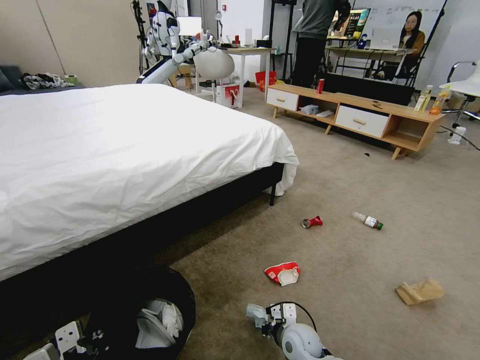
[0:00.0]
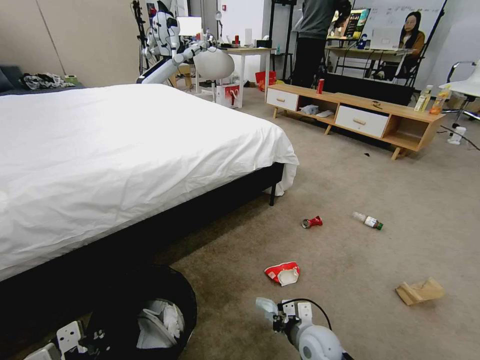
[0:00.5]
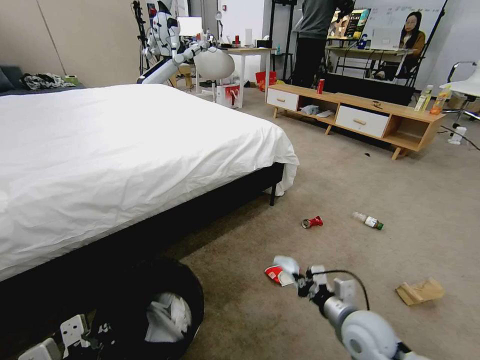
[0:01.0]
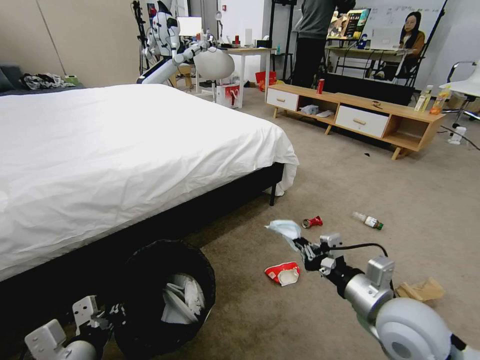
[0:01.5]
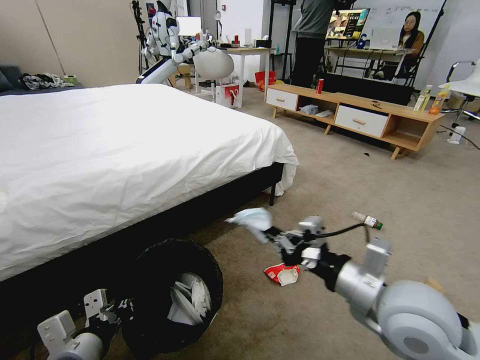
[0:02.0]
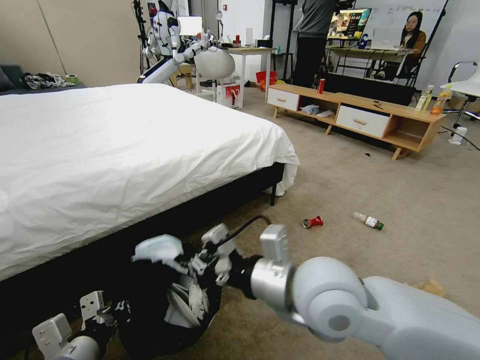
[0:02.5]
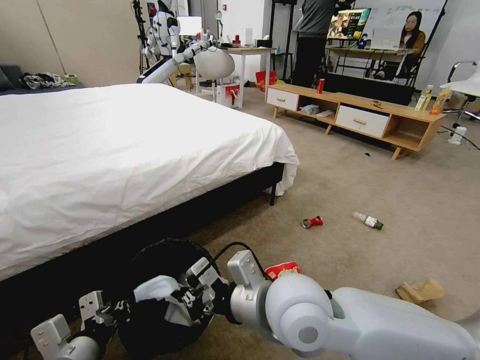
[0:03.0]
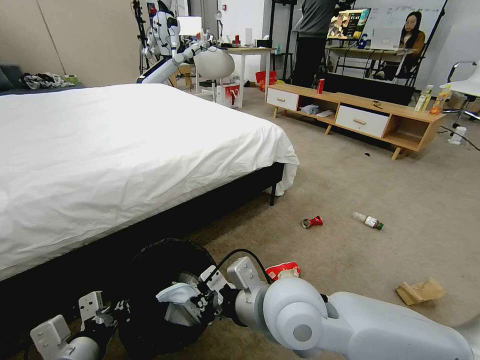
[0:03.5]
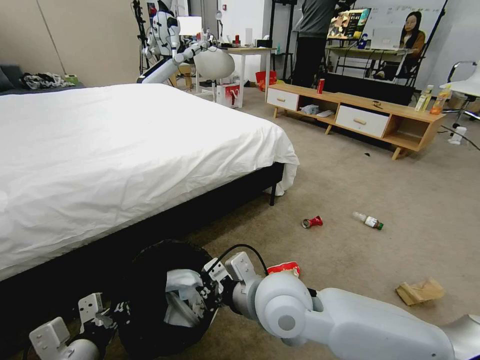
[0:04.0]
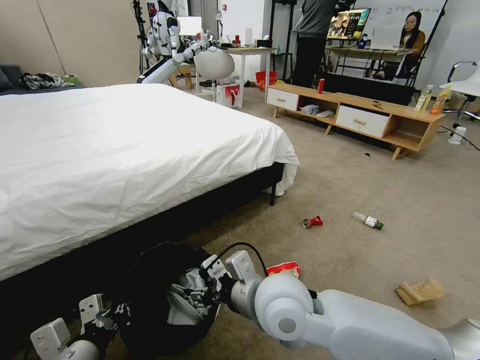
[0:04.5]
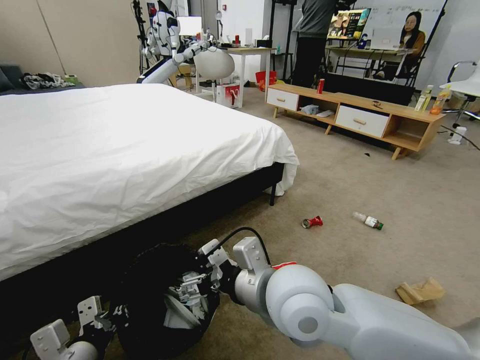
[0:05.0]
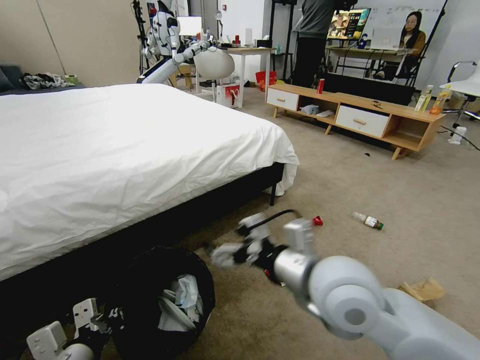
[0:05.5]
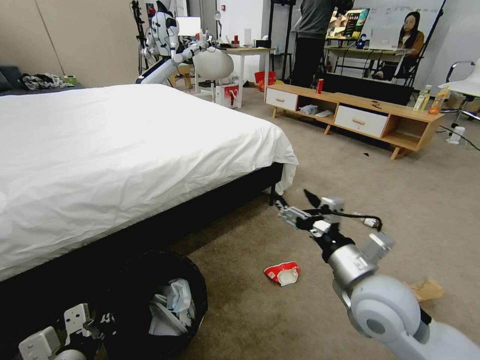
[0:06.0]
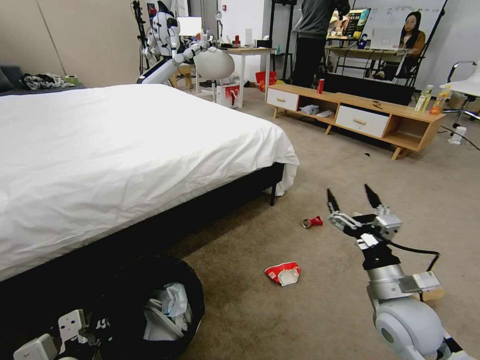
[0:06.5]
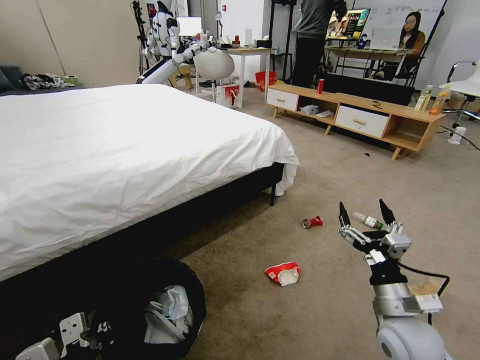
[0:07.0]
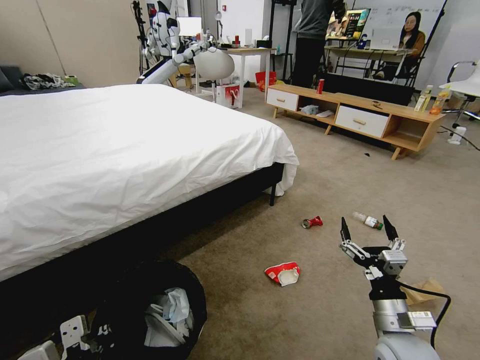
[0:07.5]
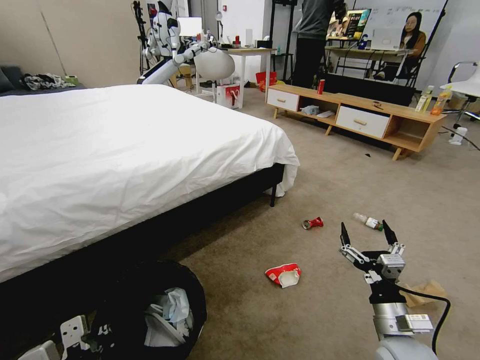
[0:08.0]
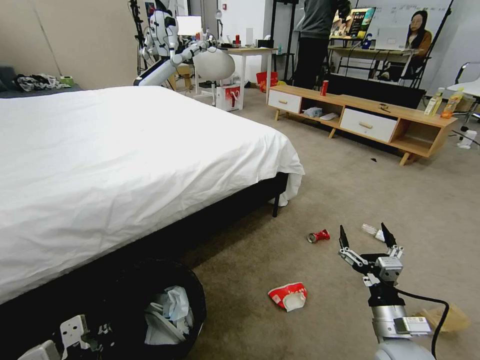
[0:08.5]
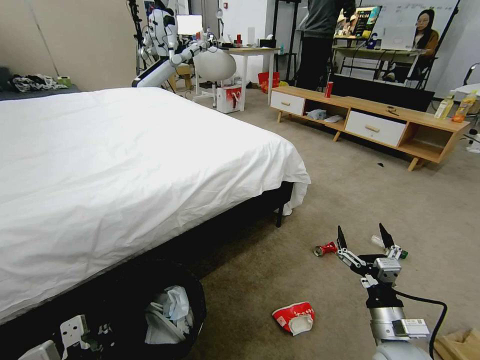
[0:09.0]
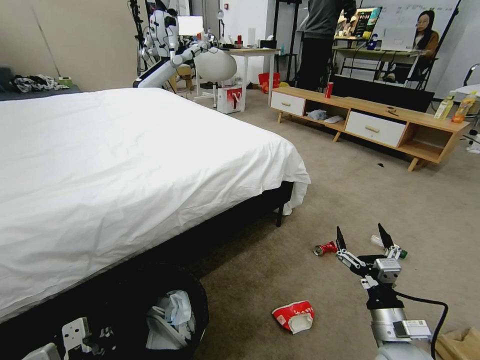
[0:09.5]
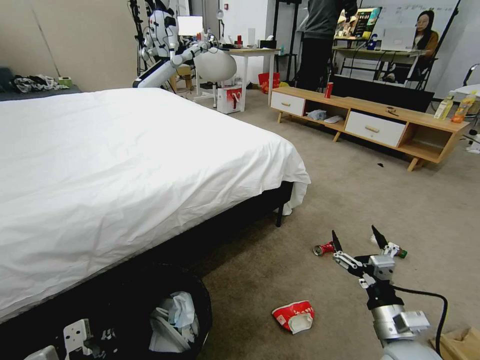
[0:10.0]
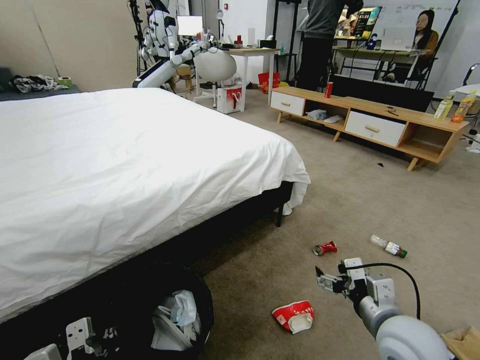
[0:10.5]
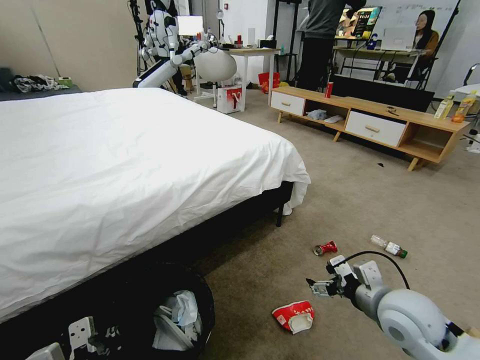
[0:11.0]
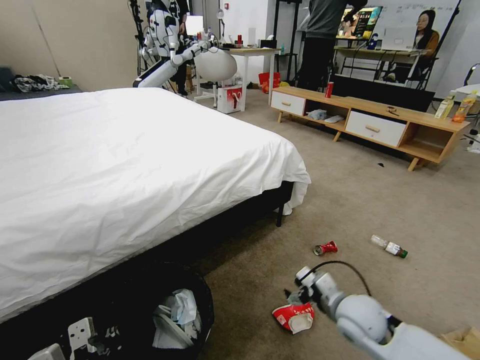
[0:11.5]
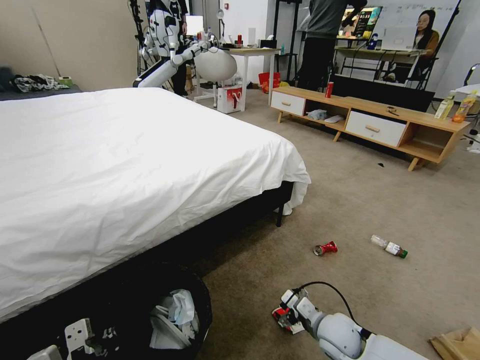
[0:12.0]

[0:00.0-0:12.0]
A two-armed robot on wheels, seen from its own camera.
Task of the whole recording: Pick up the trash bin and place the garbage on the floor into it.
0:00.0 to 0:02.0: The right gripper shifts about 35 cm upward.
0:02.0 to 0:04.0: The right gripper goes roughly 15 cm to the left.
0:04.0 to 0:06.0: The right gripper heads to the right, covering roughly 15 cm, and opens its fingers.
0:06.0 to 0:08.0: The right gripper goes some 15 cm downward and to the right.
0:10.0 to 0:12.0: The right gripper is displaced downward, forward and to the left by roughly 15 cm.

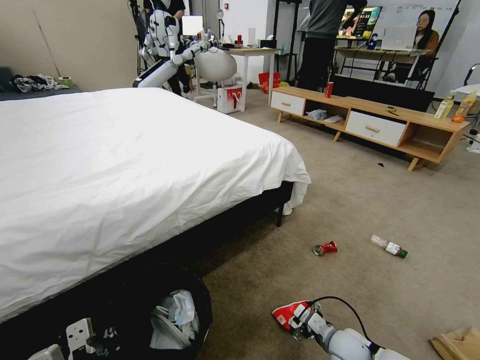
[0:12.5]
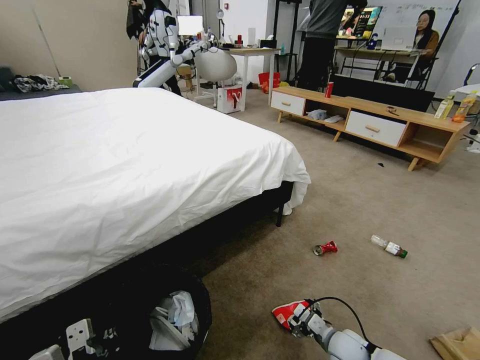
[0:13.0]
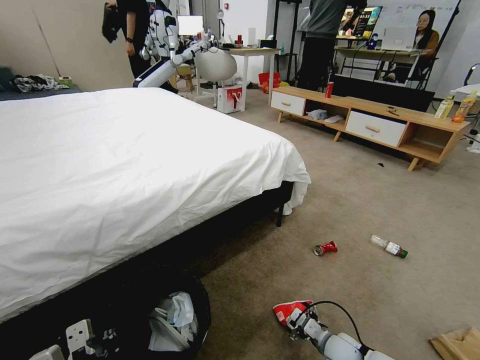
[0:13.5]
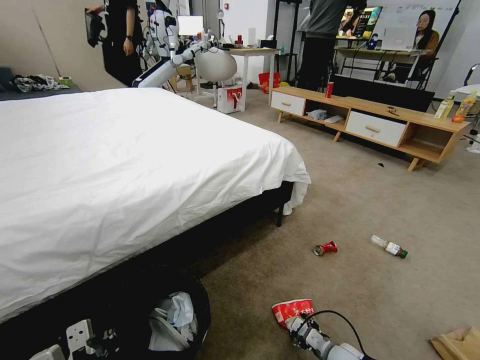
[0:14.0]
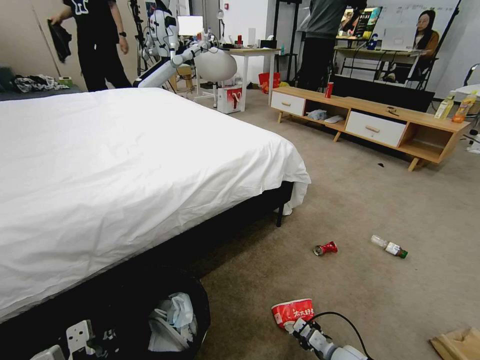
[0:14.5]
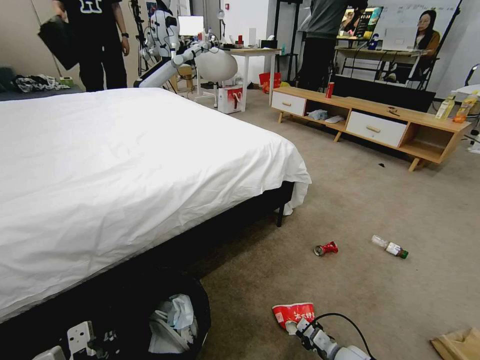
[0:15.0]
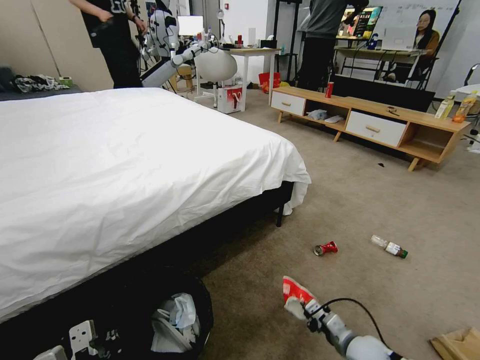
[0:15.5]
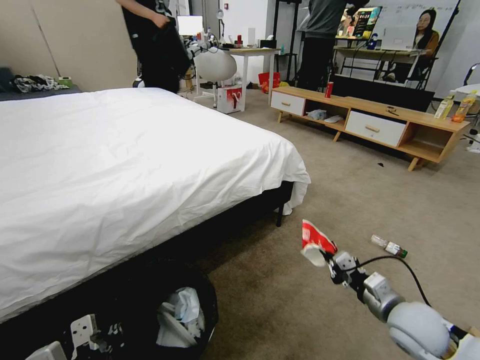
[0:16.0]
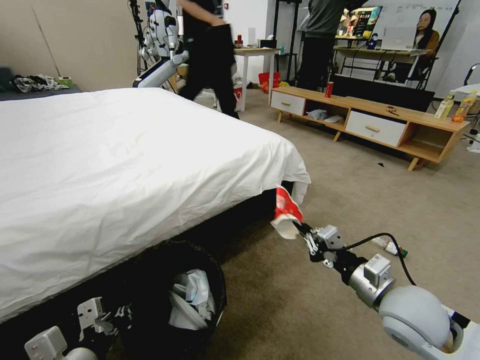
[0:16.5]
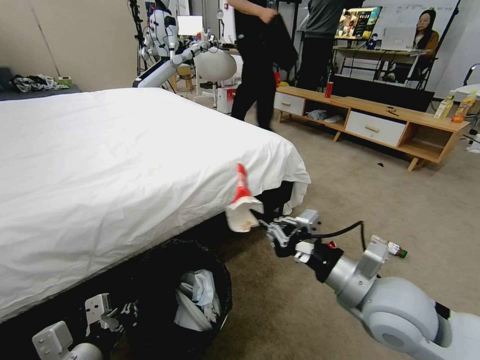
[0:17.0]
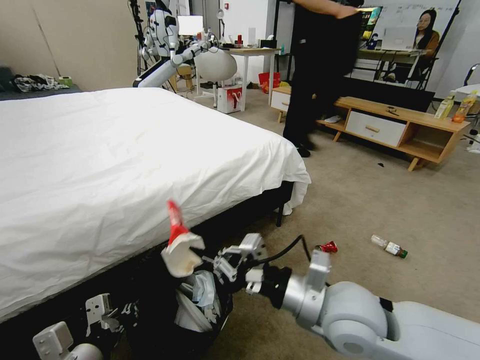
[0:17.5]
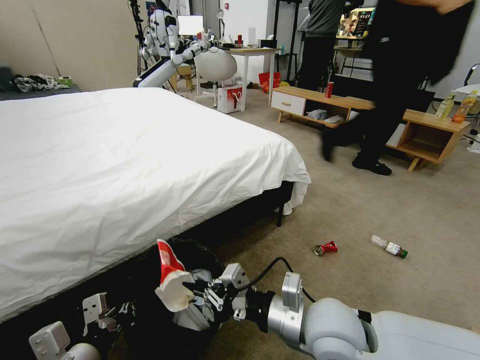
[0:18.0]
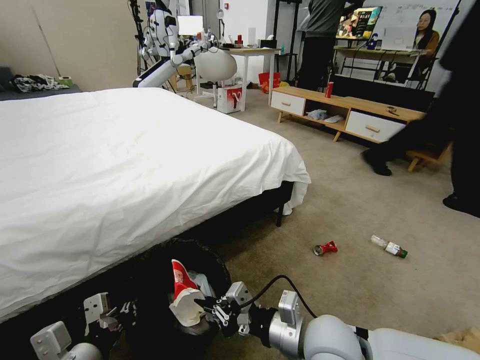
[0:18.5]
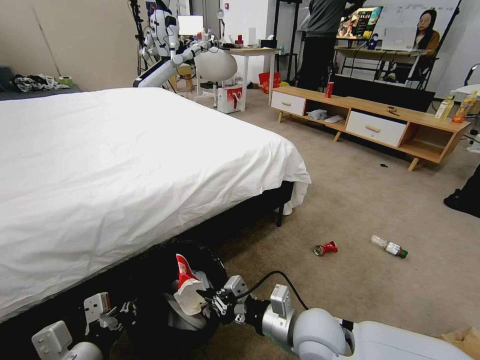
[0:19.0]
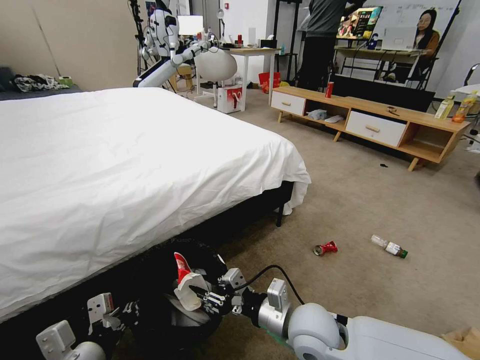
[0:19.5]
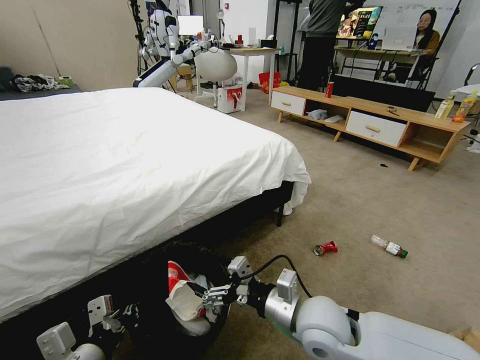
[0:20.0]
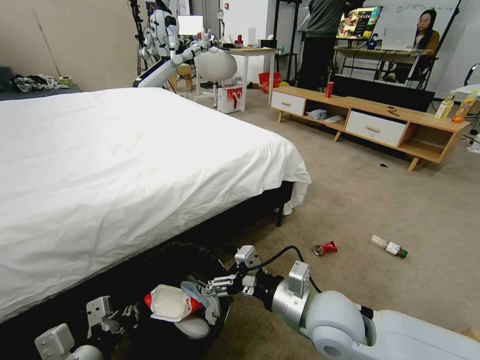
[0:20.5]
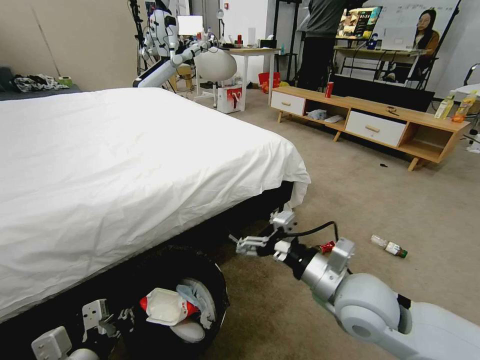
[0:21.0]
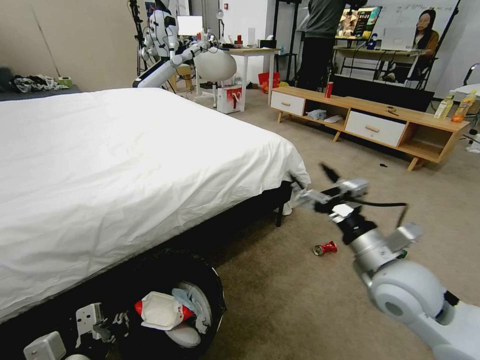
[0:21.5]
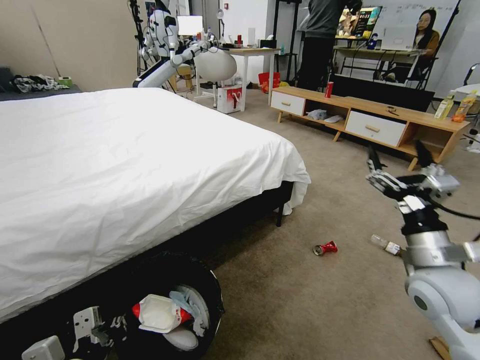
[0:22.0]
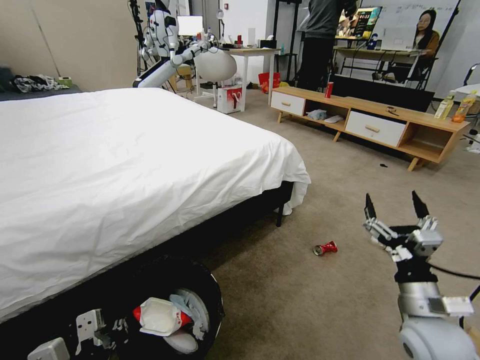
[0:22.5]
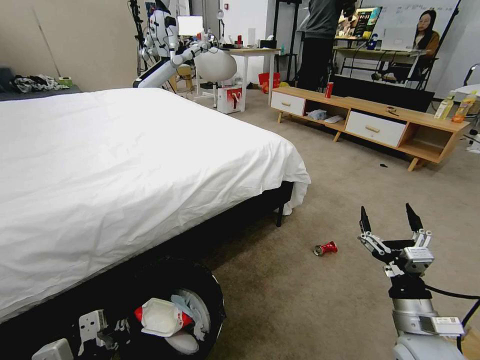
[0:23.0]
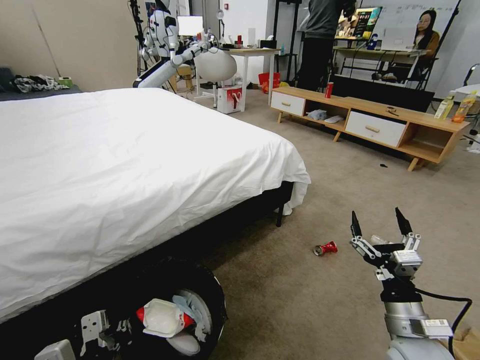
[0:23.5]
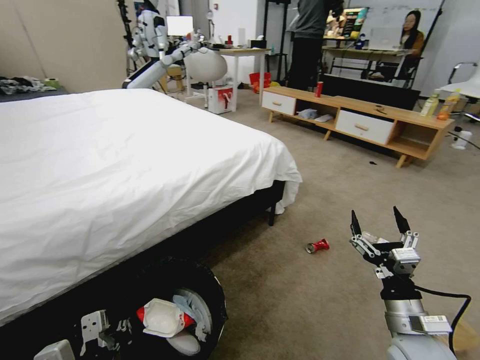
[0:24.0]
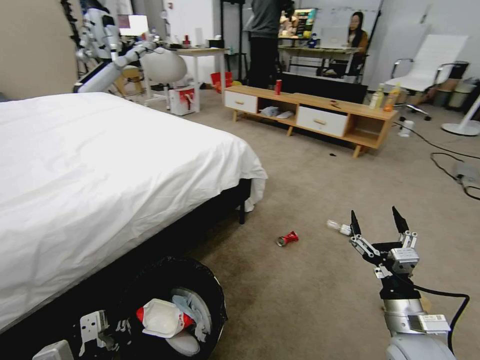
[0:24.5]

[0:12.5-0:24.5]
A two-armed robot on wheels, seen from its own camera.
Task of the whole recording: Pick up the trash bin and place the garbage on the floor into it.
0:12.5 to 0:14.5: The right gripper is displaced downward by roughly 5 cm, and closes its fingers.
0:14.5 to 0:16.5: The right gripper travels upward by about 30 cm.
0:16.5 to 0:18.5: The right gripper shifts some 15 cm to the left.
0:18.5 to 0:20.5: The right gripper opens its fingers.
0:20.5 to 0:22.5: The right gripper shifts about 20 cm to the right.

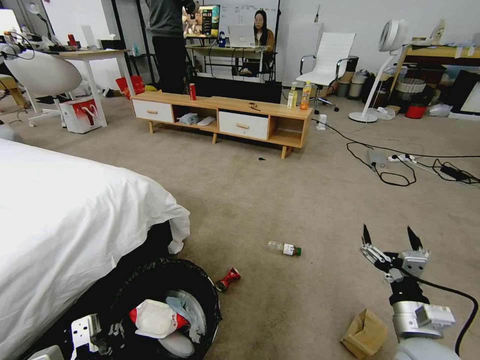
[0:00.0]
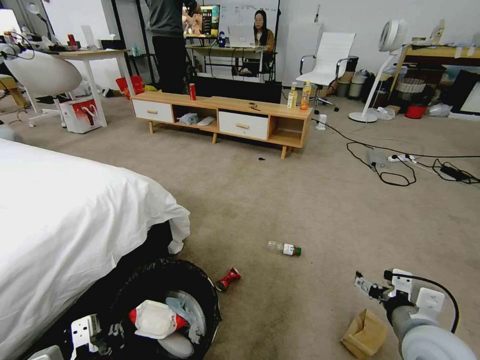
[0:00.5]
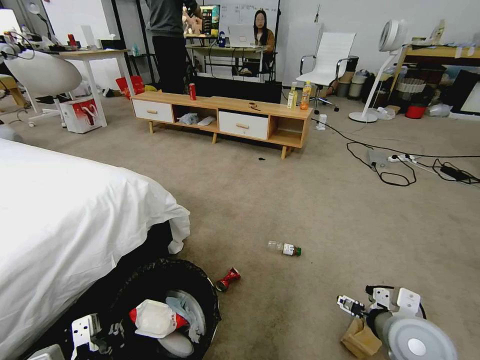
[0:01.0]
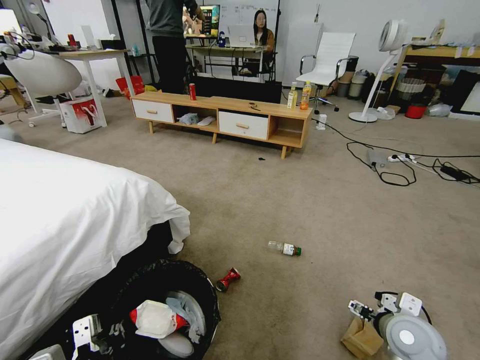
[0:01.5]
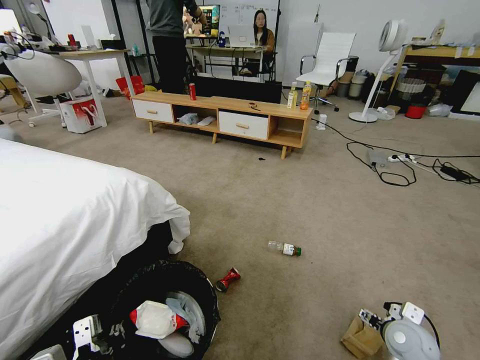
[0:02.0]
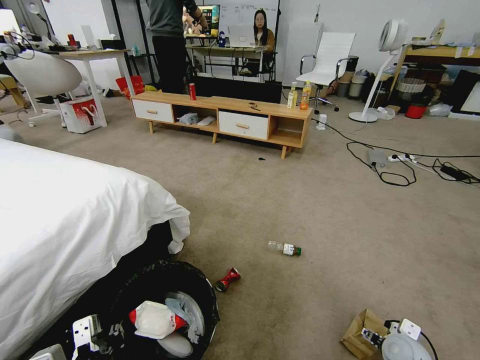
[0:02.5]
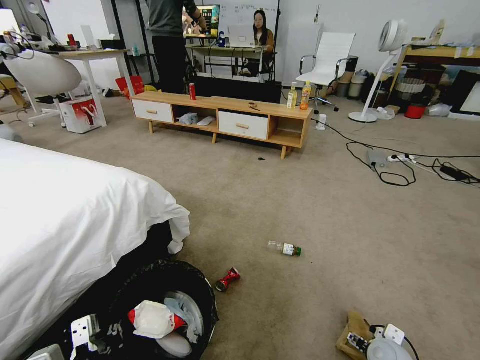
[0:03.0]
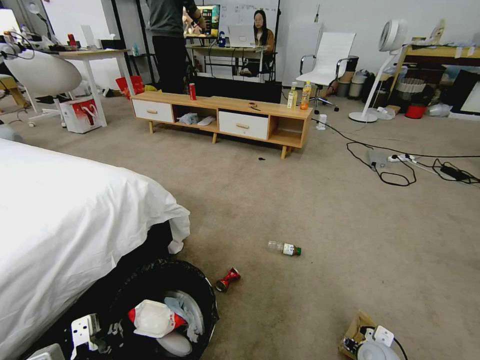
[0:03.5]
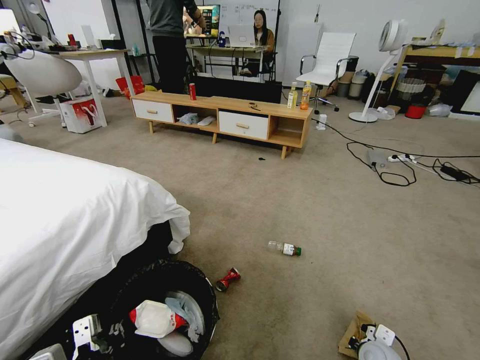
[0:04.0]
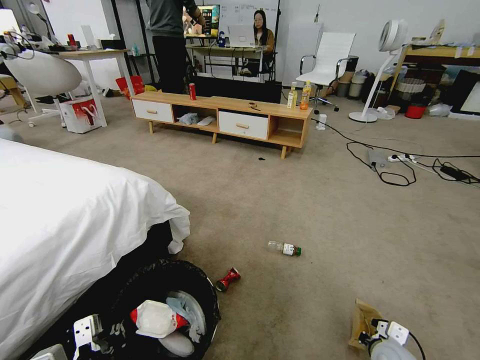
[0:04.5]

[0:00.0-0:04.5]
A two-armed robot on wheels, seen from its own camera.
Task of the whole recording: Pick up the trash bin and place the garbage on the floor into it.
0:00.0 to 0:02.0: The right gripper goes approximately 10 cm downward, forward and to the right.
0:02.0 to 0:04.5: The right gripper travels downward by approximately 5 cm, and closes.
